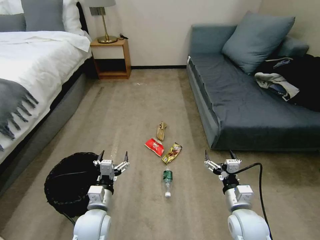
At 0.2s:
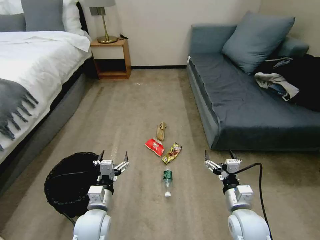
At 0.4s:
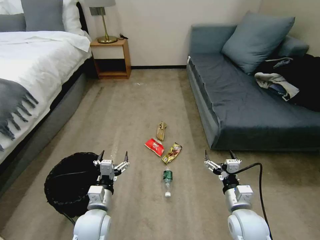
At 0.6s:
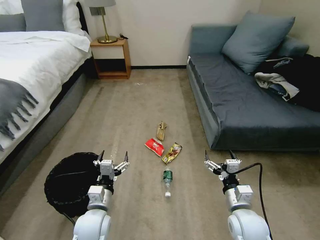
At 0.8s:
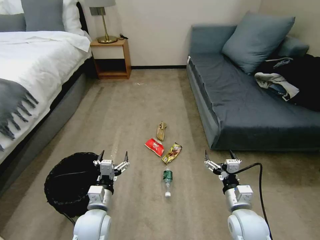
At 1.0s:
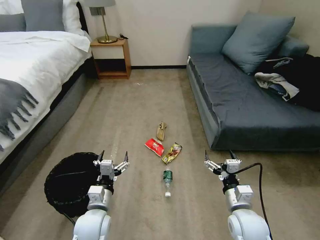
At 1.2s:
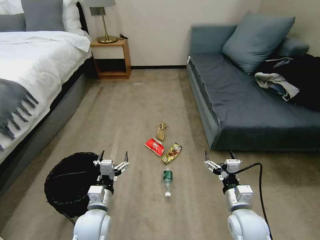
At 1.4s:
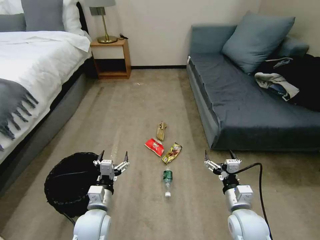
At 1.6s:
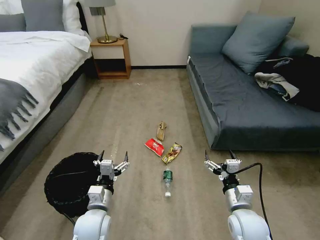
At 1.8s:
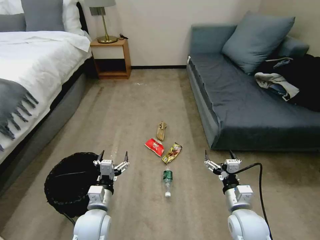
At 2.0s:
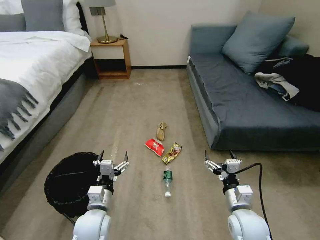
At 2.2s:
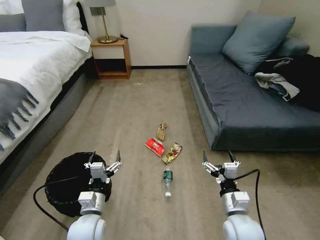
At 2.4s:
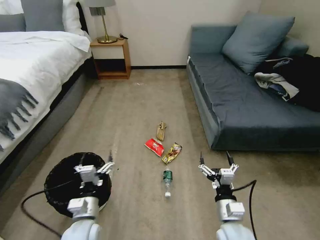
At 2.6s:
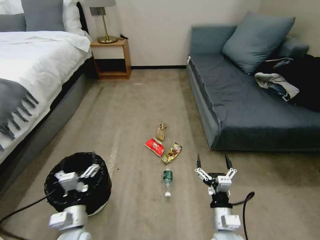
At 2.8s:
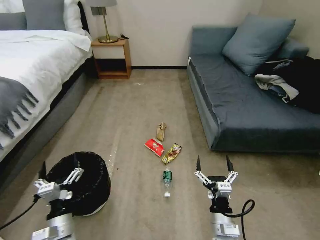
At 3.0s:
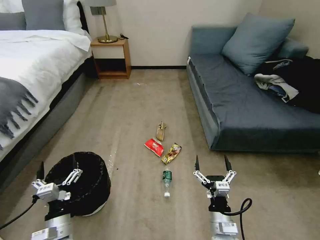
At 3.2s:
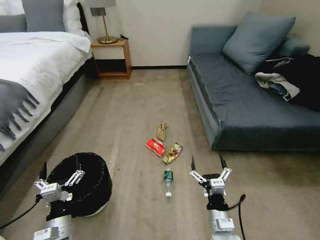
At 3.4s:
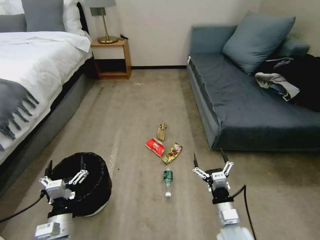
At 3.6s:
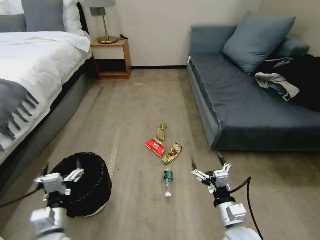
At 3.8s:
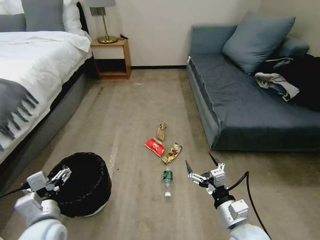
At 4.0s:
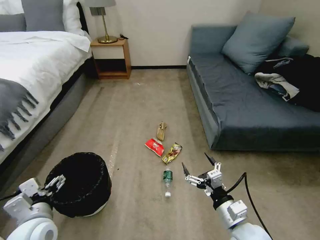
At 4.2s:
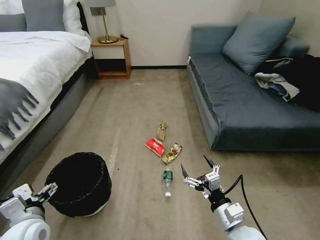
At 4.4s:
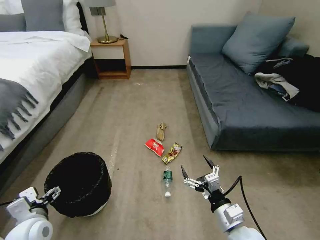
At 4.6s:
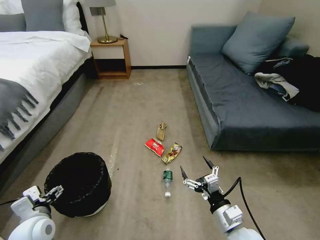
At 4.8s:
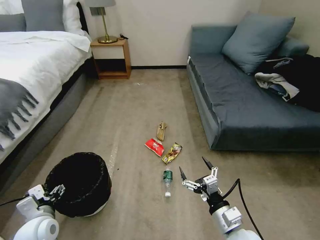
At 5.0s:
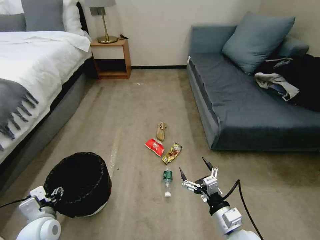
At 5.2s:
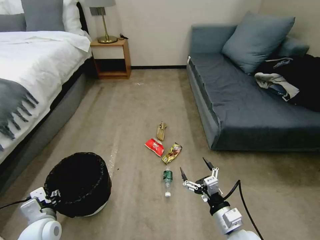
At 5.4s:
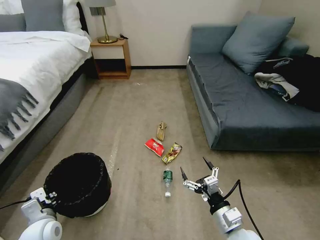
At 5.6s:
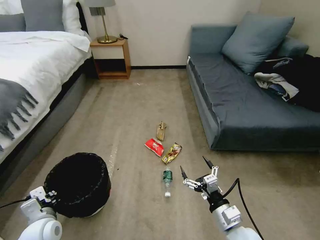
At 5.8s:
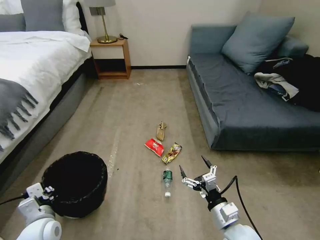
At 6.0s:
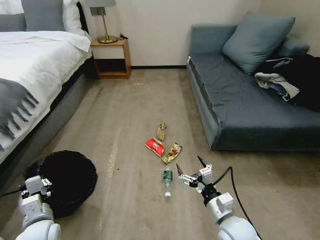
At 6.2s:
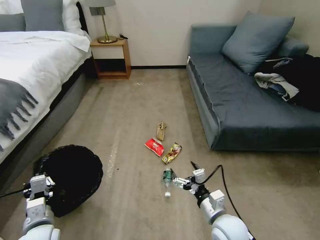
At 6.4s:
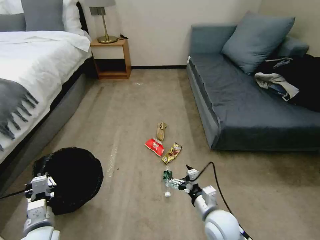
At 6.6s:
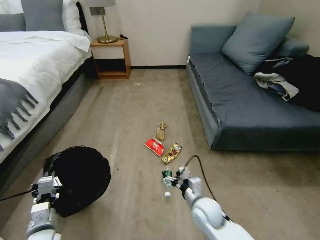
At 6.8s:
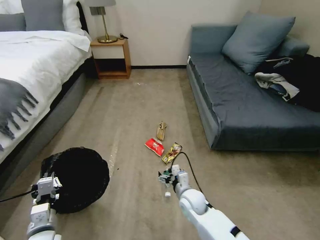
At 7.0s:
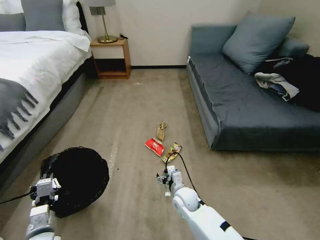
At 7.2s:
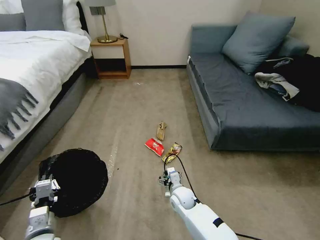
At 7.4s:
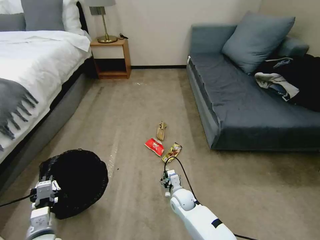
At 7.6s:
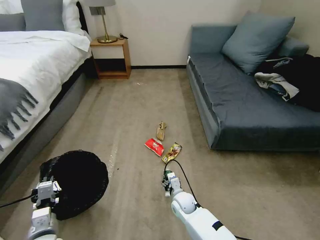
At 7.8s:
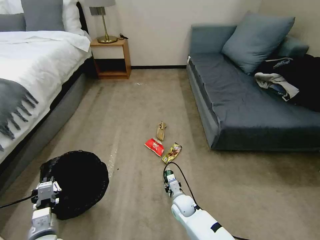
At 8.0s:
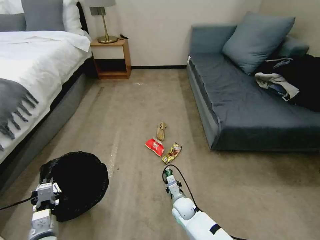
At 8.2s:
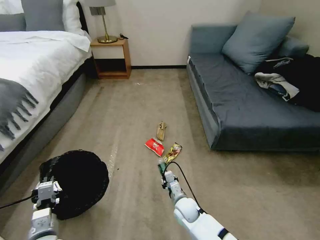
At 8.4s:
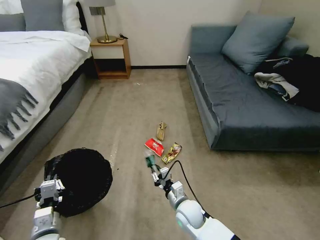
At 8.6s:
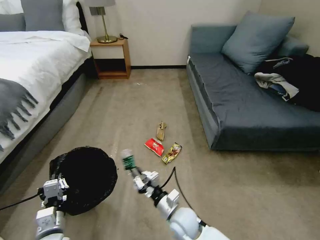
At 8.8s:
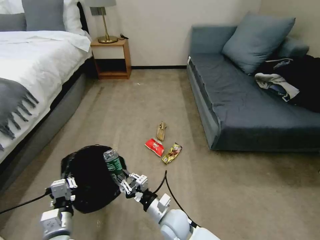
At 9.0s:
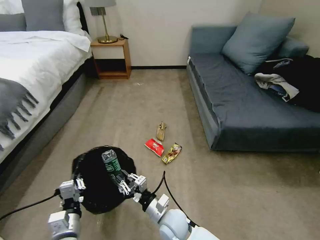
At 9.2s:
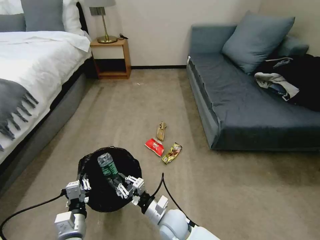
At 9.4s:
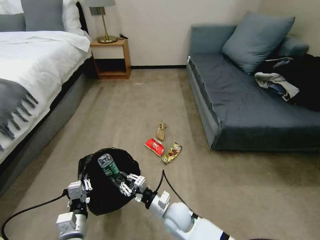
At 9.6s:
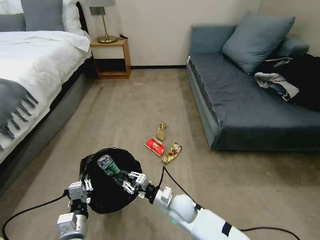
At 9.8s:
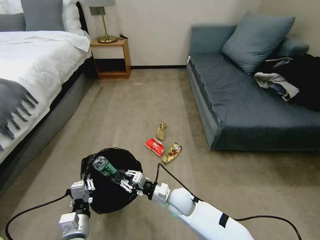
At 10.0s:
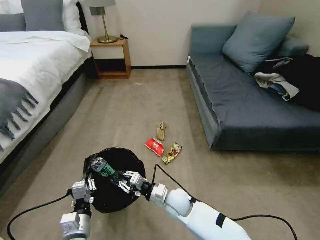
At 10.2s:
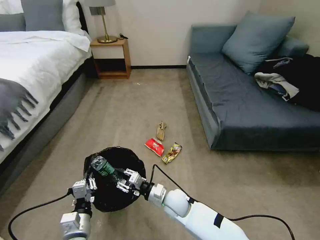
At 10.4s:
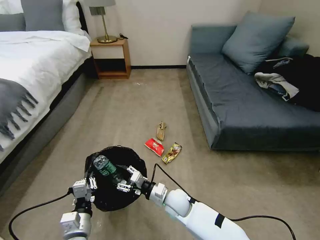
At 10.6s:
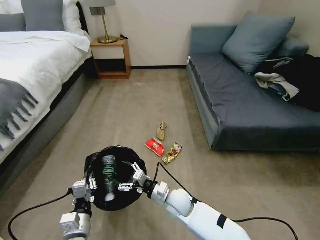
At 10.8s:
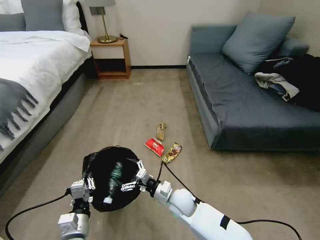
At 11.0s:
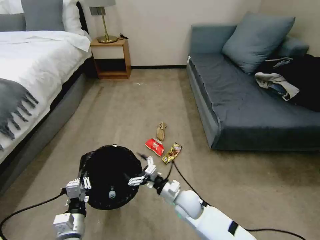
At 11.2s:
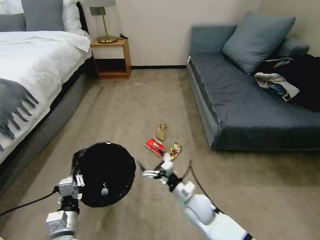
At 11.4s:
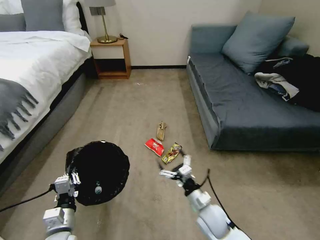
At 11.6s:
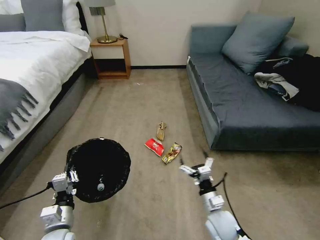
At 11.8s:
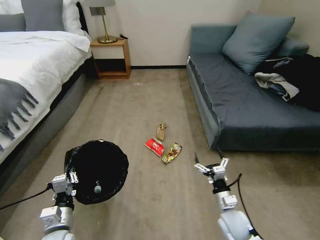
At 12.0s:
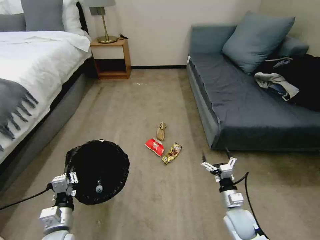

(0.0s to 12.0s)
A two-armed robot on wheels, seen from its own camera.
Task of the whole recording: Pick up the trash bin, then pick up the garbage on the floor and place it into the trash bin.
1.6s - 3.0s: The grippers both shift to the left and backward by about 10 cm.
3.0s - 4.4s: The right gripper moves upward, approximately 5 cm, while the left gripper moves to the left and upward, about 10 cm.
4.4s - 6.0s: The left gripper closes its fingers.
6.0s - 7.6s: The right gripper shifts approximately 25 cm downward, forward and to the left, and closes.
7.6s - 9.0s: The left gripper shifts some 5 cm to the right; the right gripper is displaced backward, upward and to the left by about 15 cm, and closes its fingers.
9.0s - 10.4s: The right gripper heads forward, covering roughly 5 cm, and opens up.
10.4s - 12.0s: The left gripper is displaced to the left by about 5 cm; the right gripper heads to the right, covering roughly 20 cm, and opens.

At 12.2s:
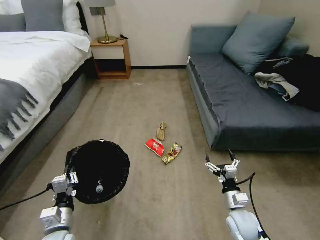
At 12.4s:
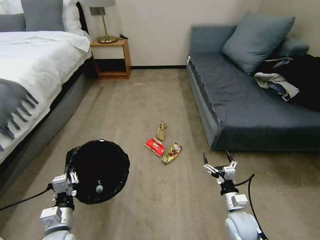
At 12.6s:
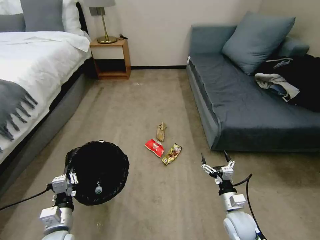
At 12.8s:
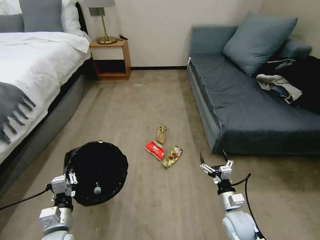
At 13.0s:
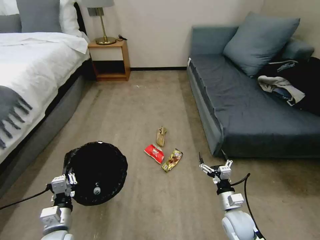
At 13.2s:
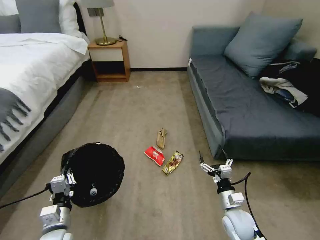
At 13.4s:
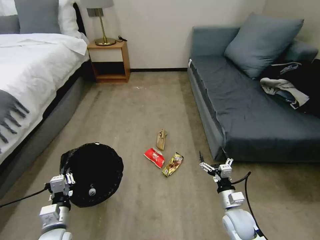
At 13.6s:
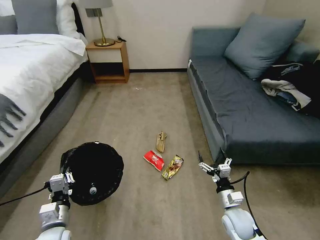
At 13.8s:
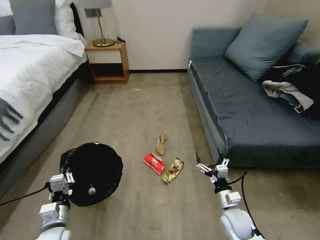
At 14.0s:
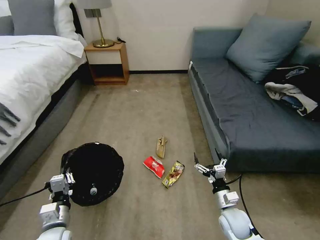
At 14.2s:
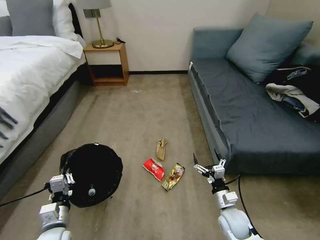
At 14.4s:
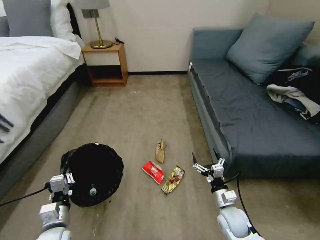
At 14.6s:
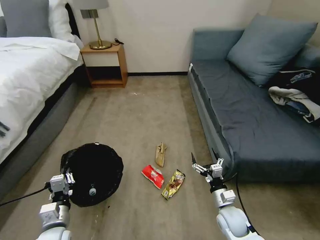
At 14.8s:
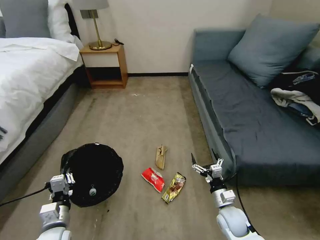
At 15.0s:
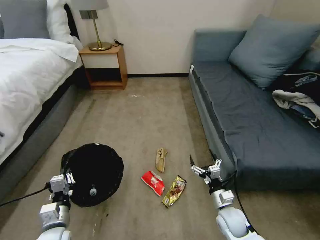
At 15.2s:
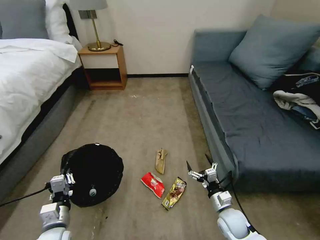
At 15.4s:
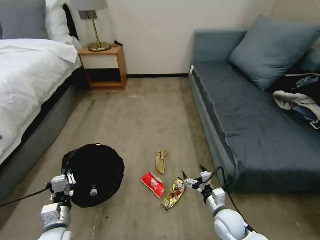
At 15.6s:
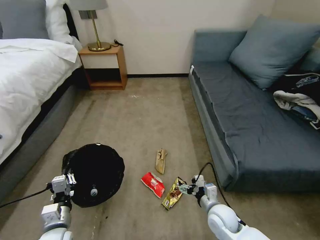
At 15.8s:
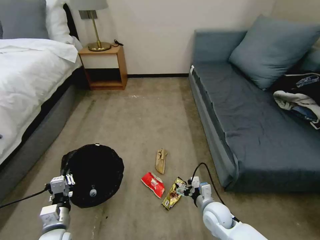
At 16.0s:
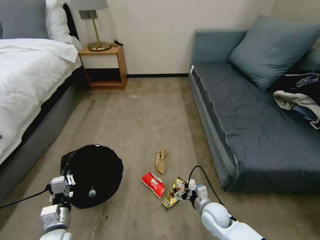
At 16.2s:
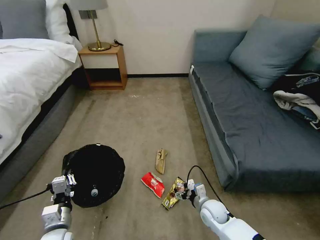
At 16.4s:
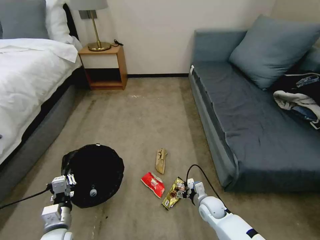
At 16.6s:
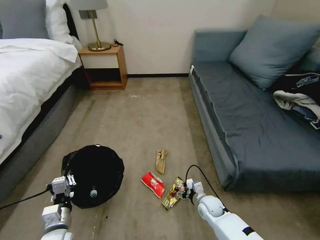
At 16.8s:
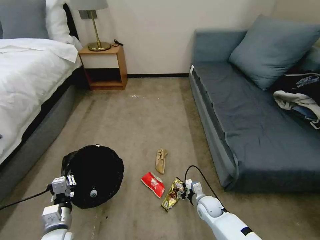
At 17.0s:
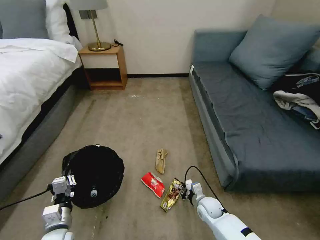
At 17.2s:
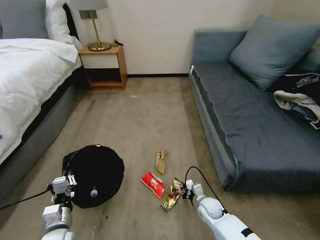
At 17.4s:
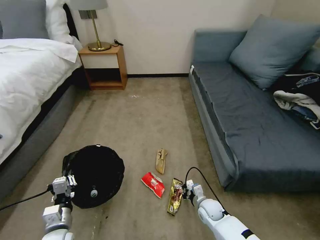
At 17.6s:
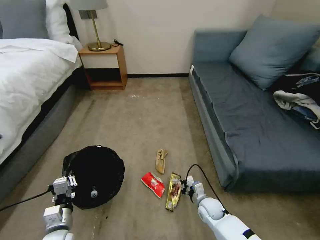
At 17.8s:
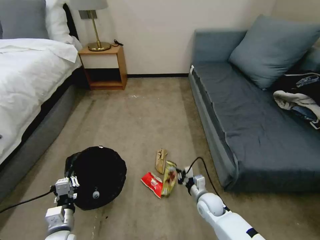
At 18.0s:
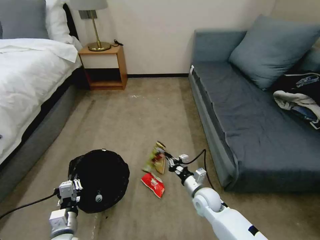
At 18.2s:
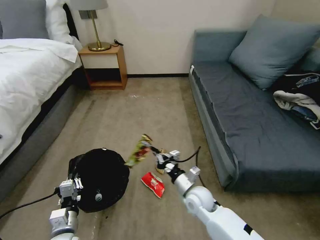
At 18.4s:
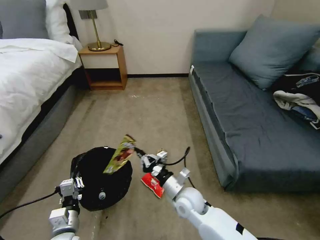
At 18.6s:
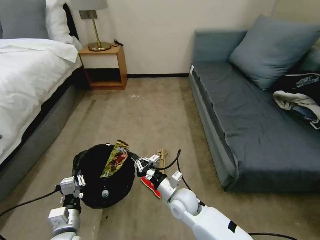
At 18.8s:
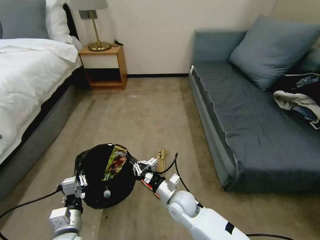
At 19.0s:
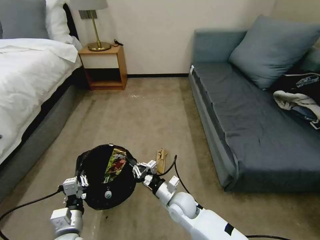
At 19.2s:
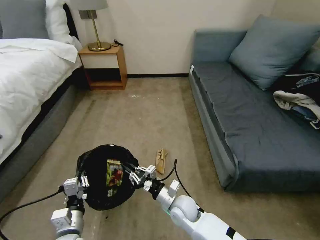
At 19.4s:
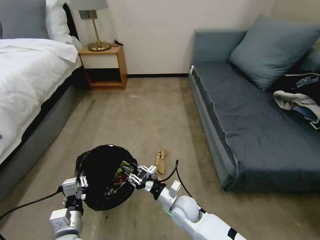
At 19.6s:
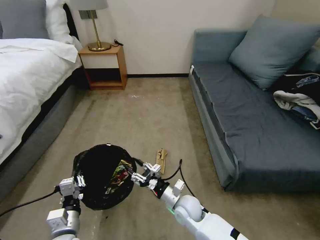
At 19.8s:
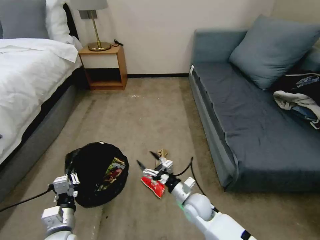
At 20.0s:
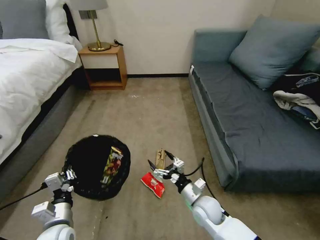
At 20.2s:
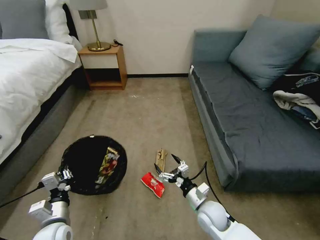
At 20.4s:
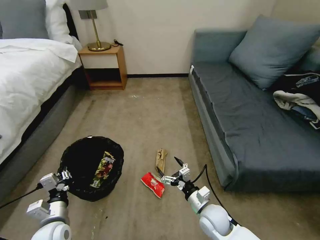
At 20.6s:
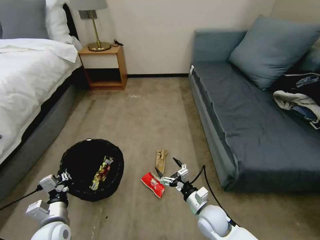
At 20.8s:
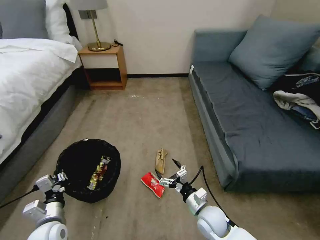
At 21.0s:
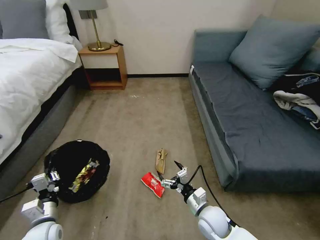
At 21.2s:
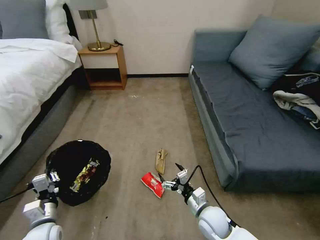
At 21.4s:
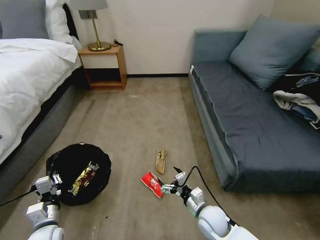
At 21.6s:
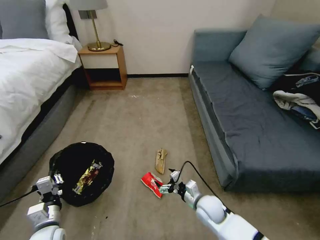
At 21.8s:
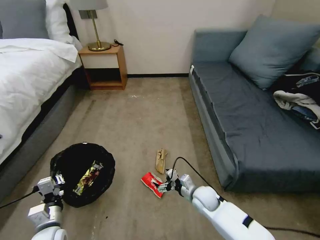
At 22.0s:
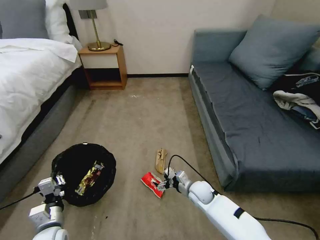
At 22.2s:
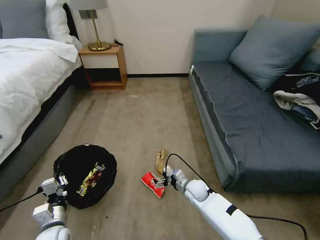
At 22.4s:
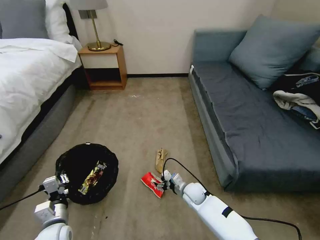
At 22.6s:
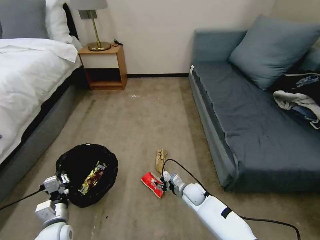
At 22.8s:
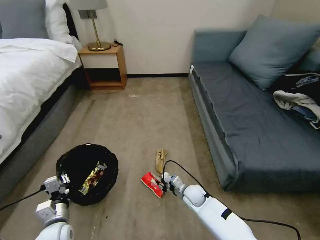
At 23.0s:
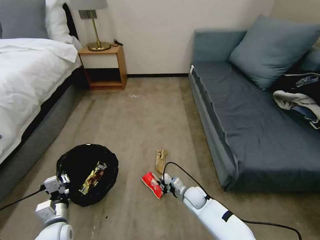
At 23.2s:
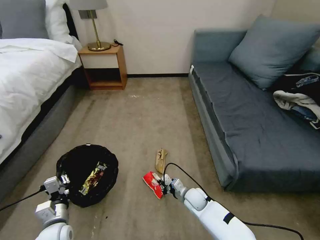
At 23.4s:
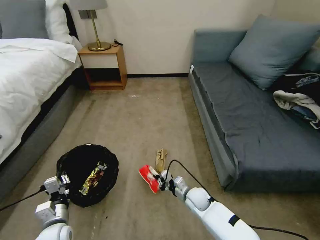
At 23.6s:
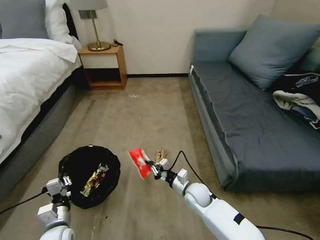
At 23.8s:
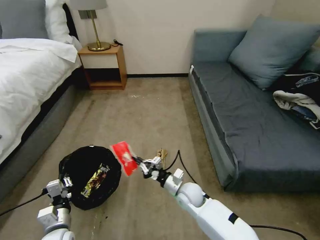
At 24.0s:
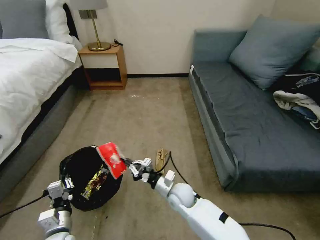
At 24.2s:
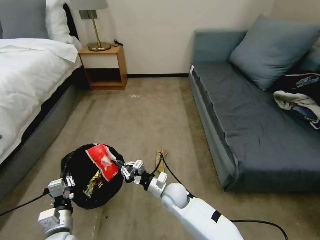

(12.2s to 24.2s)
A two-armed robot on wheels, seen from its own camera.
Task of the whole recording: Pick up the trash bin, then pick up the garbage on the floor and place it into the trash bin.
15.2s - 16.6s: The right gripper moves forward and downward, roughly 10 cm.
16.6s - 18.2s: The right gripper goes about 15 cm upward and to the left, and closes up.
18.2s - 19.8s: The right gripper opens its fingers.
19.8s - 21.2s: The right gripper heads to the right, covering roughly 5 cm. The left gripper is displaced to the left by about 5 cm.
21.2s - 22.6s: The right gripper goes roughly 15 cm forward and downward, and closes its fingers.
22.6s - 24.2s: The right gripper heads to the left and upward, covering approximately 15 cm, and closes its fingers.
